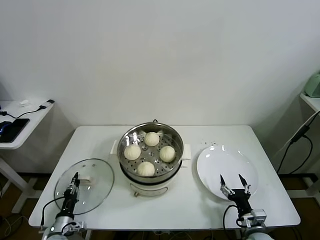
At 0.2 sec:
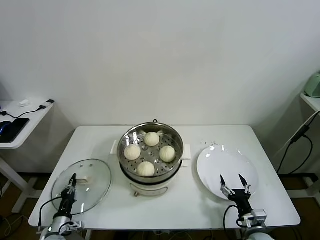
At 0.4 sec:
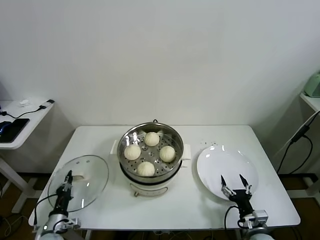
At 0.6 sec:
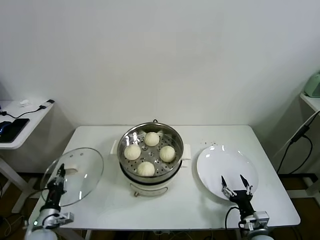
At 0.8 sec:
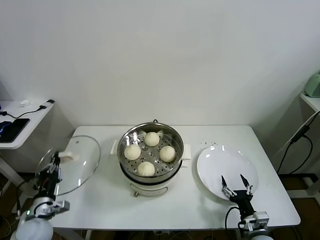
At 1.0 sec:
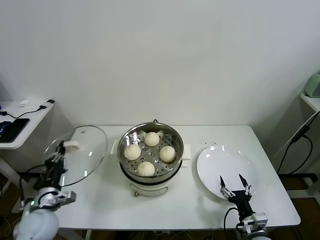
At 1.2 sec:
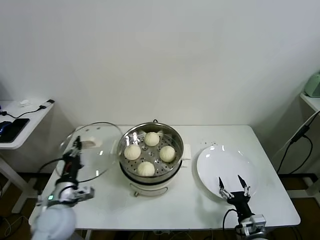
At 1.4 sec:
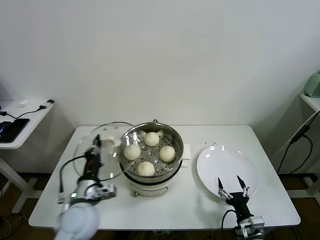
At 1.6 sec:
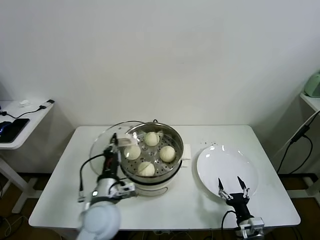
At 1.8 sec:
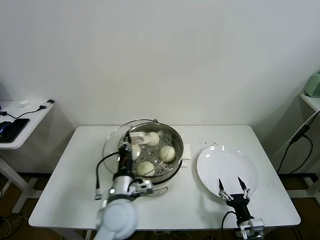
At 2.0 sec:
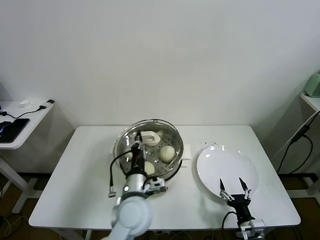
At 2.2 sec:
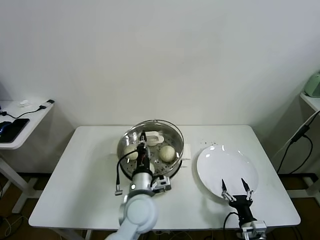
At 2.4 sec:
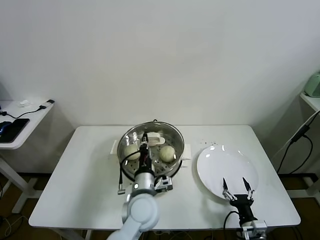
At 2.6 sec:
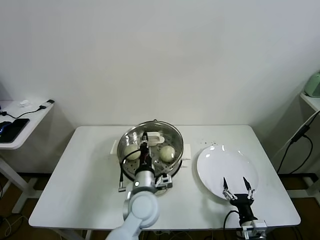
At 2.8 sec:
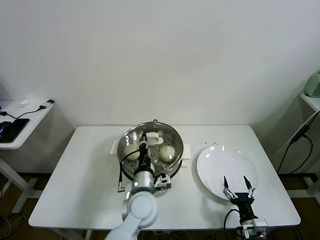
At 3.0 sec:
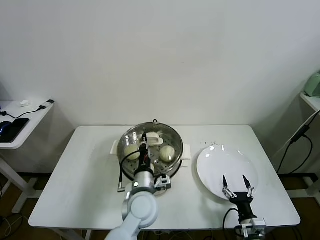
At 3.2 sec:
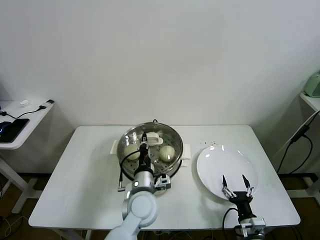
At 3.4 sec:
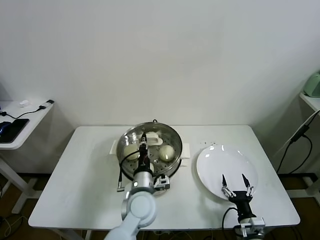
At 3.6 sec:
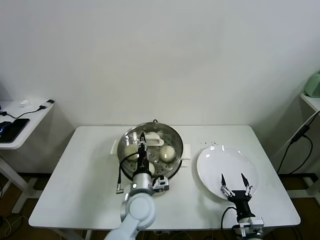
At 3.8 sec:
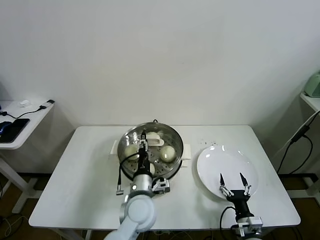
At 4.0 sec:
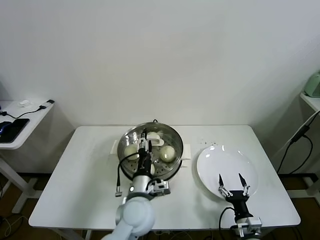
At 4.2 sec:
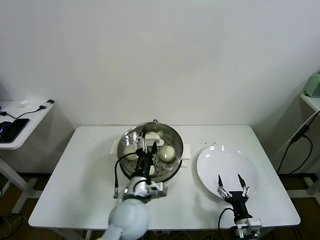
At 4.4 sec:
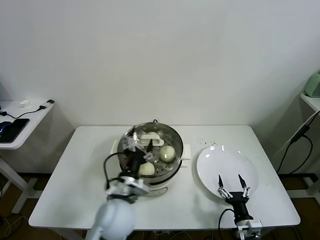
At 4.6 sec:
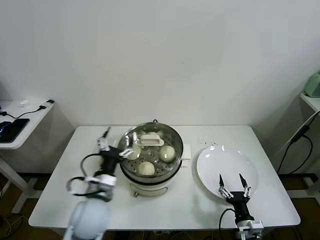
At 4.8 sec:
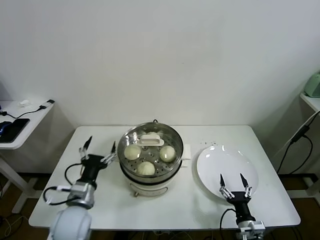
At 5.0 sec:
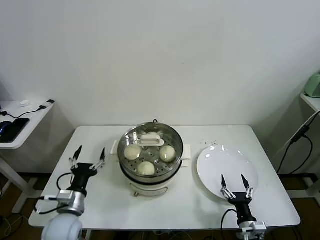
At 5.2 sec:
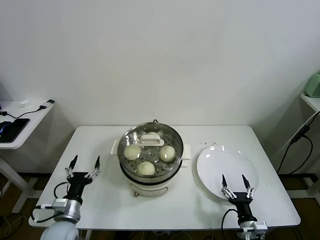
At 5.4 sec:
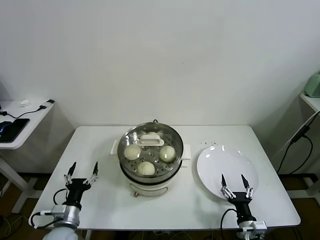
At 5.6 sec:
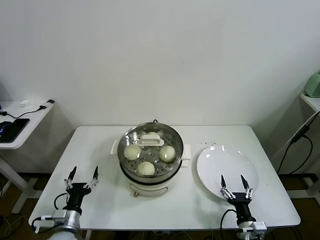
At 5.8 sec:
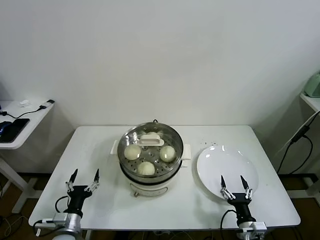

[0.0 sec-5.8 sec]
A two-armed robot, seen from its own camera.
Task of the whole recording: take steamed baozi put them in steamer.
Step, 0.4 sec to 4.0 sec: Place the pot lid on the steamer with left gripper.
0.0 sec to 1.4 sec: The left gripper shifts approximately 25 cm upward and to the right.
1.4 sec to 2.8 sec: The left gripper heads to the right, covering roughly 20 cm.
2.8 sec to 4.4 sec: The left gripper shifts by roughly 5 cm, and opens.
4.4 sec to 5.8 sec: The left gripper goes about 25 cm to the left and downward.
